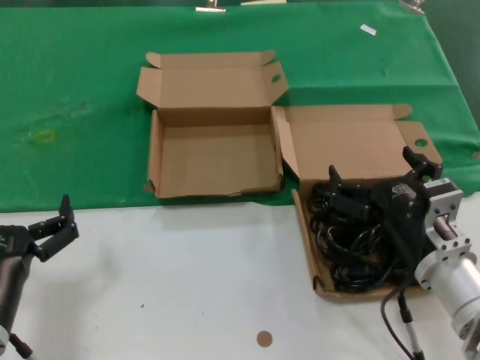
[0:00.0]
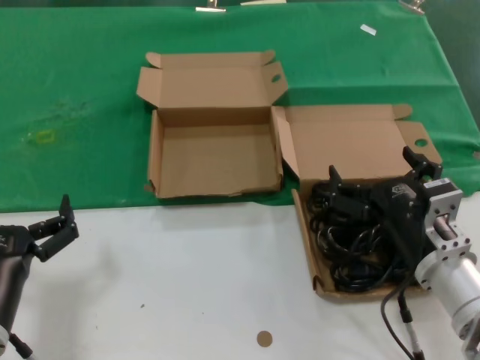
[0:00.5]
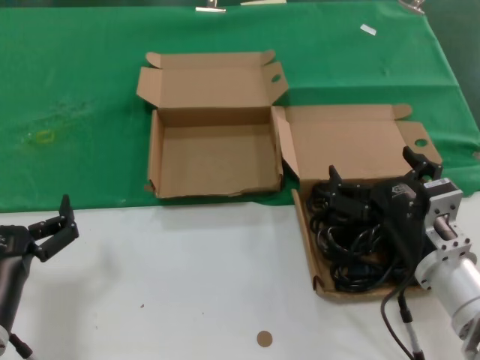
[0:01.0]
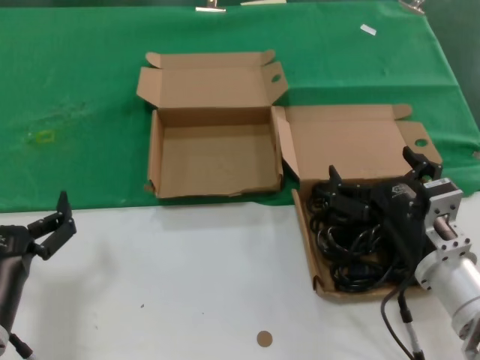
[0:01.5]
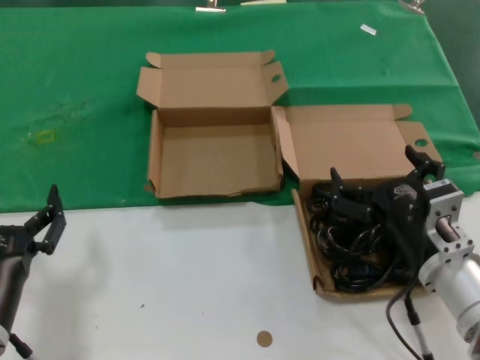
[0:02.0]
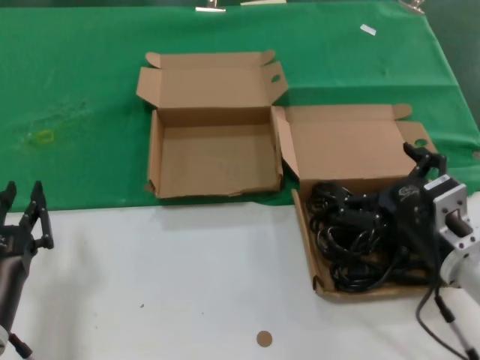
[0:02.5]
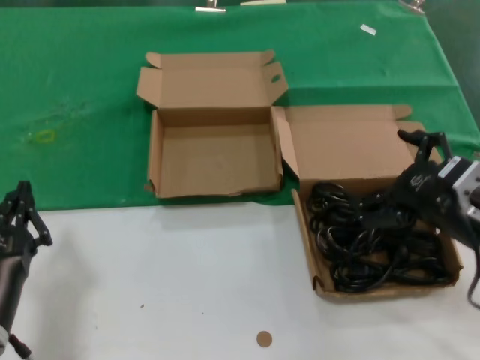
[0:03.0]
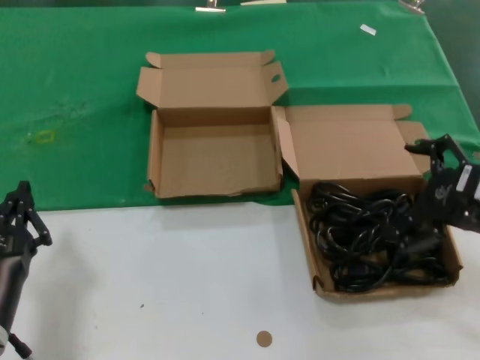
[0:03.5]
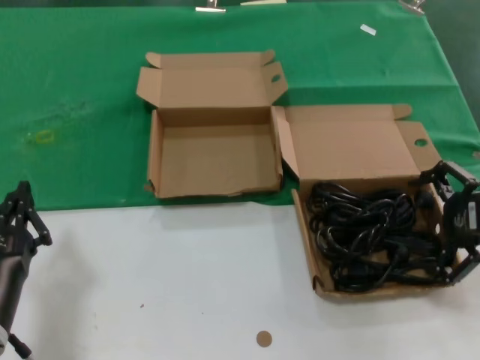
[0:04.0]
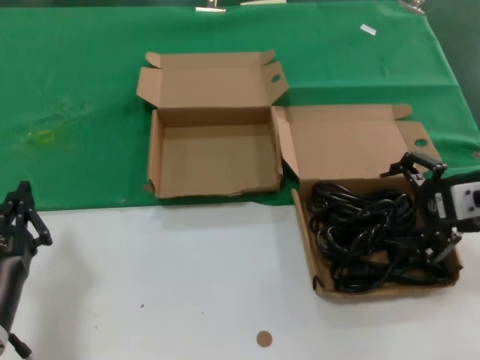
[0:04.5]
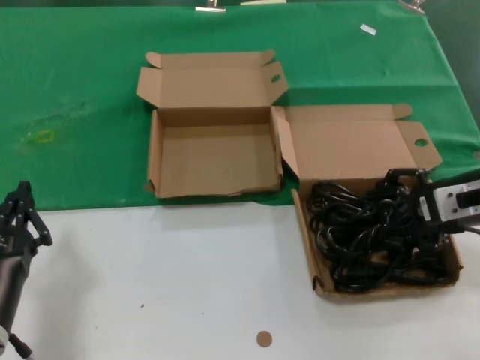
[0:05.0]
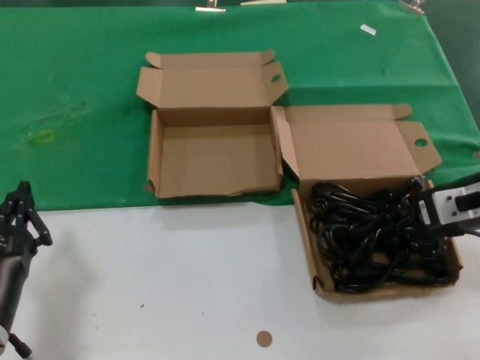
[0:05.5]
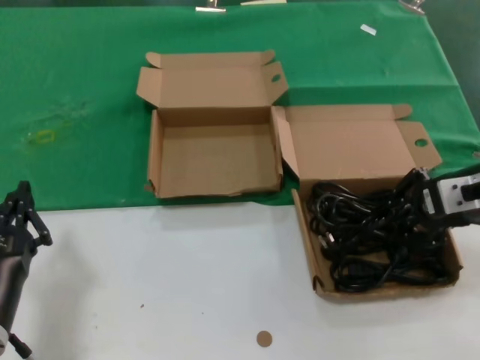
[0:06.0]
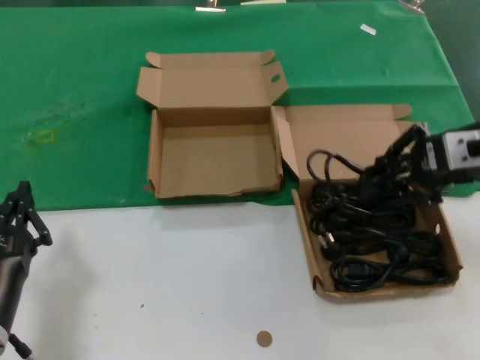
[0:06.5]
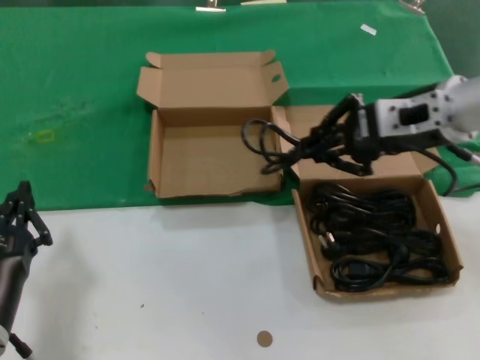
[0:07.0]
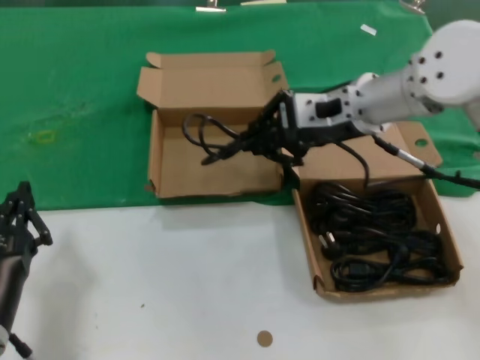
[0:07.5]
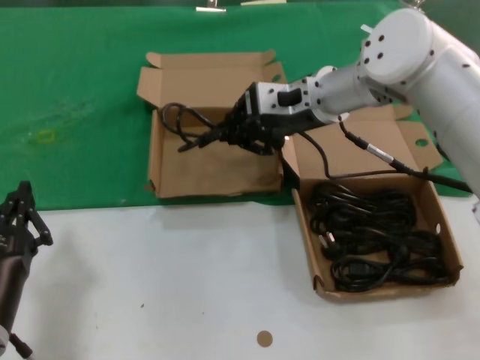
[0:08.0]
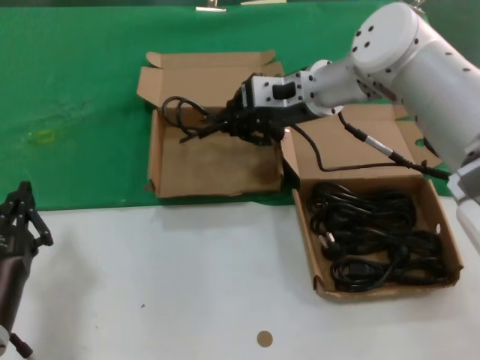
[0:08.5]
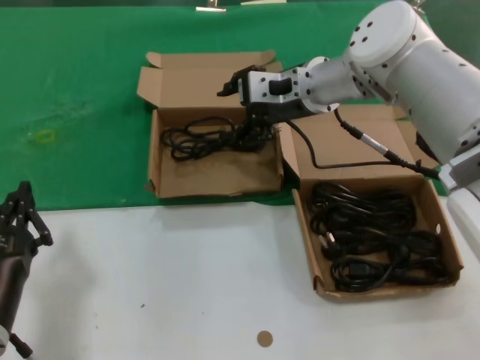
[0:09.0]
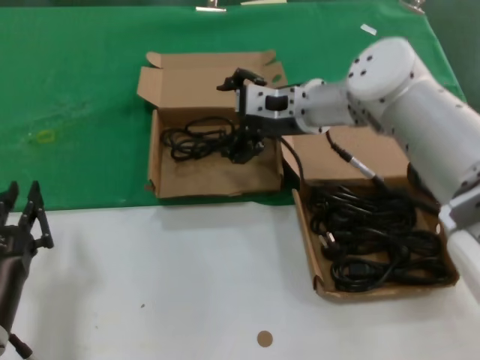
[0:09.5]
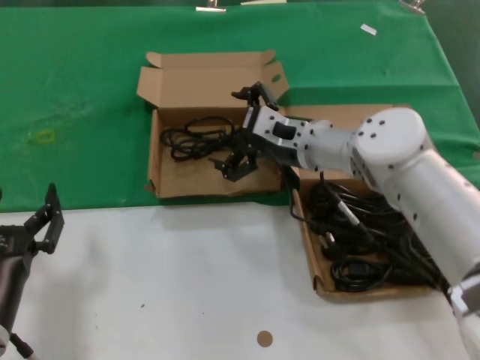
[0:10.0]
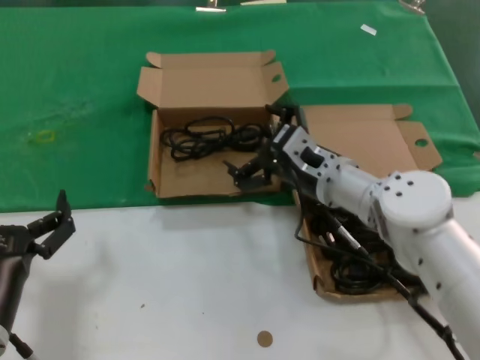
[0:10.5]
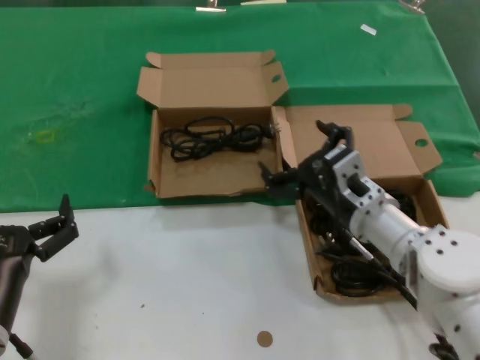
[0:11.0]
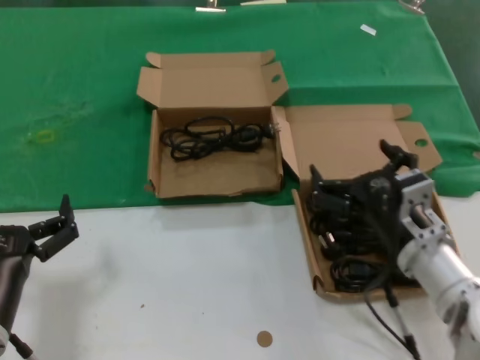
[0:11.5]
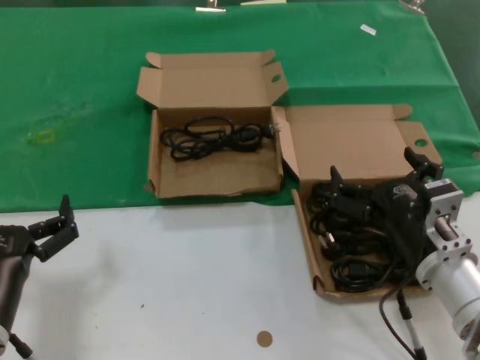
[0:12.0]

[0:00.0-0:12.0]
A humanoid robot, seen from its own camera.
Task of the whole recording: take the parts from the box containing them and put them into an empty box.
Step, 0:00.0 to 0:05.5: Grasp the data cable.
Step, 0:06.0 to 0:08.5: Place the data cable in the another box.
0:00.0 to 0:02.0: The two hands keep their place.
0:02.0 to 0:04.0: The right hand shifts some 20 cm to the right and upward.
0:04.0 to 0:06.0: The right hand moves forward, approximately 5 cm.
0:06.0 to 0:08.0: The right hand goes about 25 cm to the left and forward.
0:08.0 to 0:10.0: The right hand travels downward by about 10 cm.
0:10.0 to 0:12.0: The right hand travels backward, to the right and downward by approximately 25 cm.

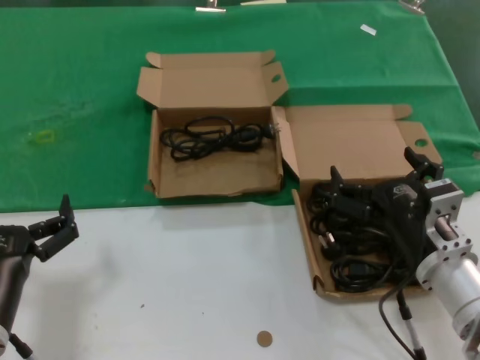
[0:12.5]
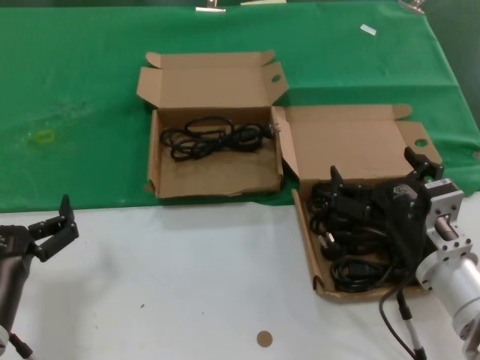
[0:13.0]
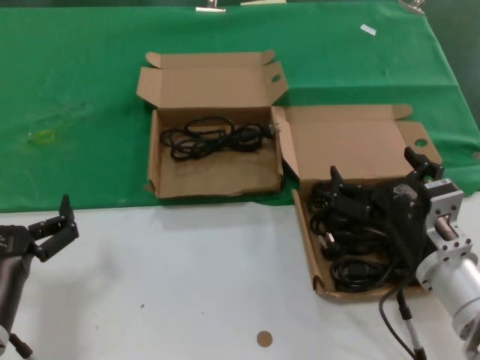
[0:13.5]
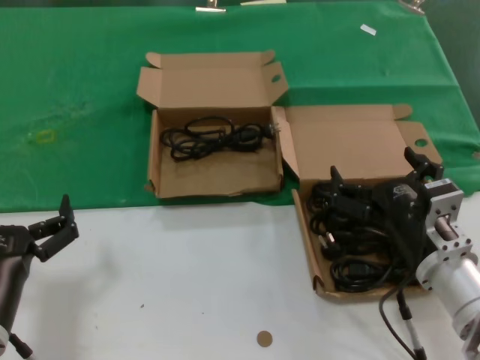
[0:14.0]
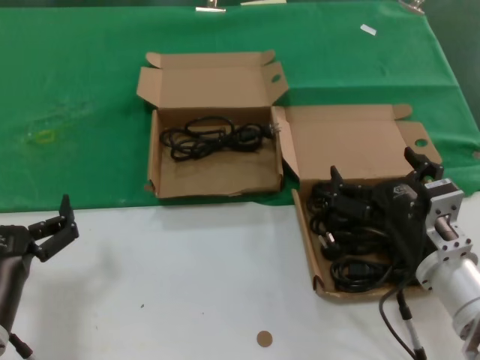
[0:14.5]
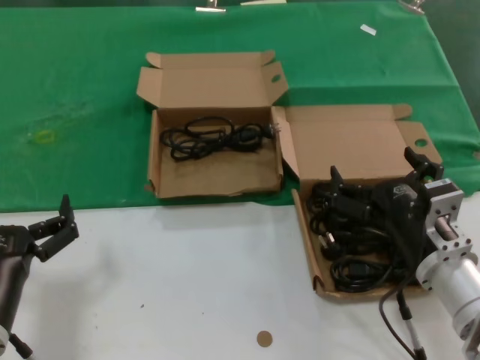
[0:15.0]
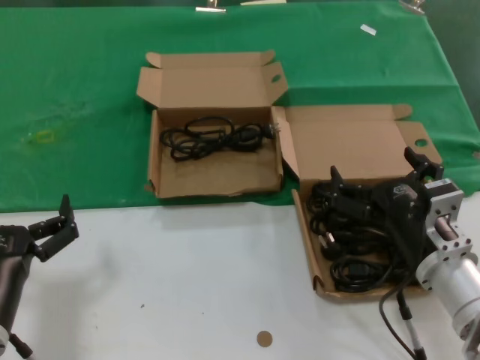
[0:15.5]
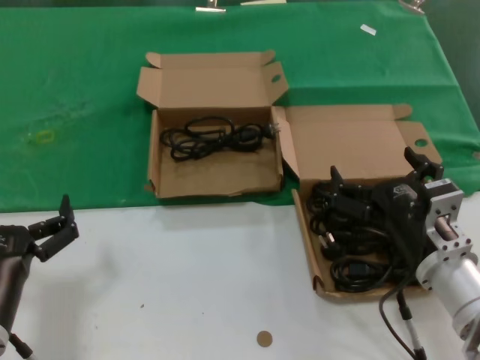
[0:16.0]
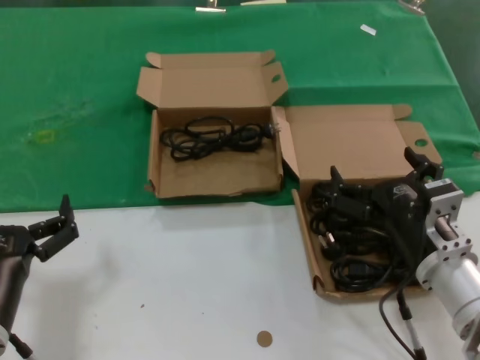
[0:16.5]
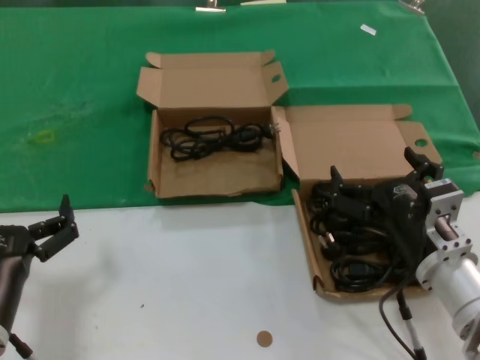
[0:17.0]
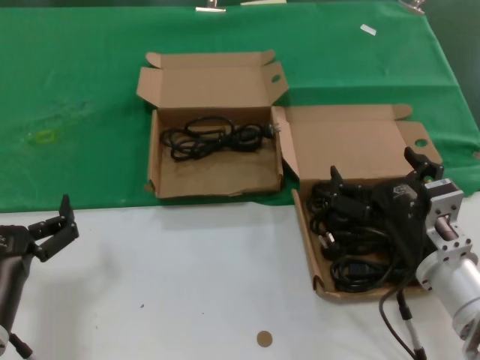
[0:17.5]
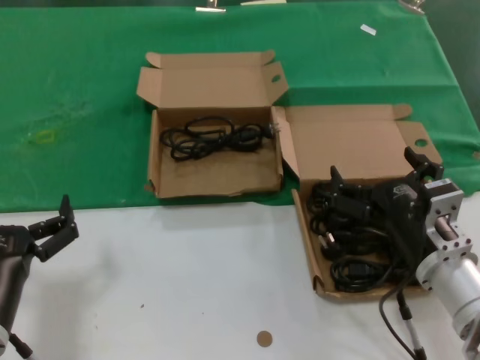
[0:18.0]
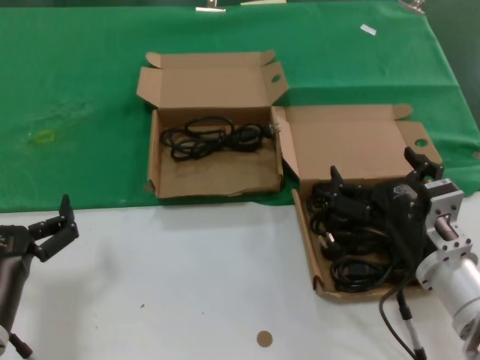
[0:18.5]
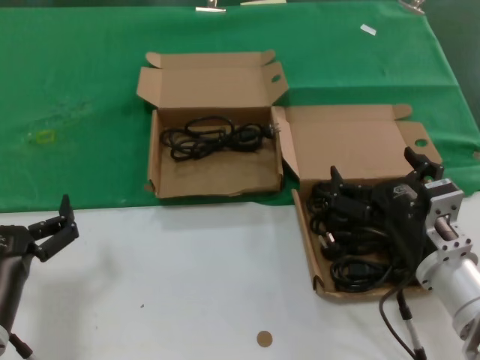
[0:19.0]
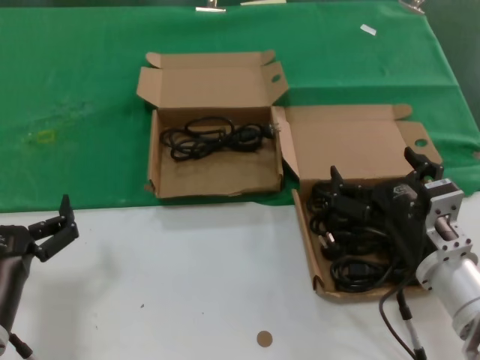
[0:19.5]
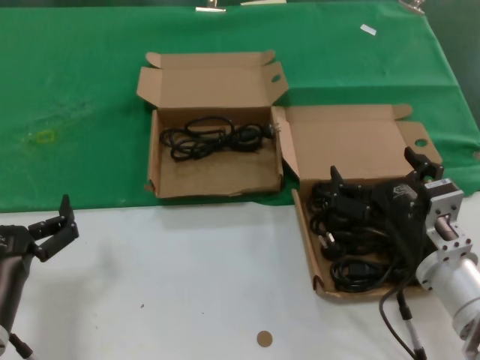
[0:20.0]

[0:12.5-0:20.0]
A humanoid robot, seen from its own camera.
Task of the whole recording: take the parts from the box containing them and put them into an empty box.
0:12.5 to 0:20.0: Neither hand changes place.
